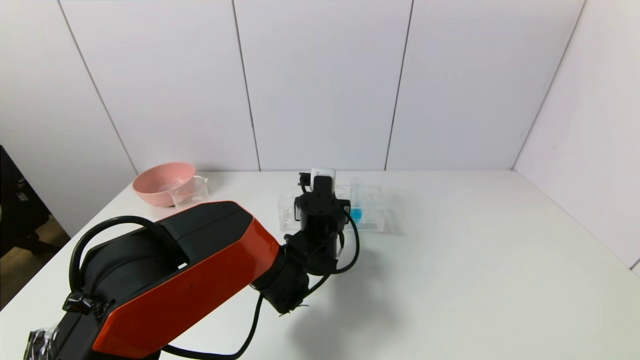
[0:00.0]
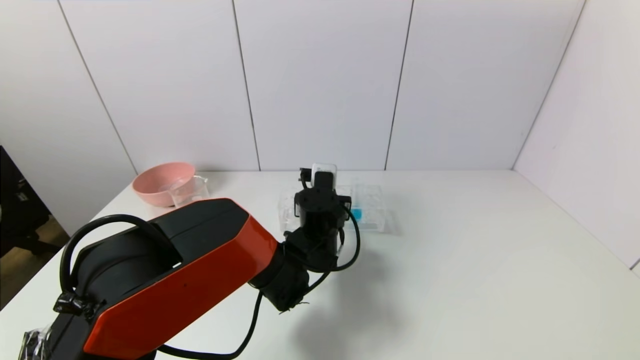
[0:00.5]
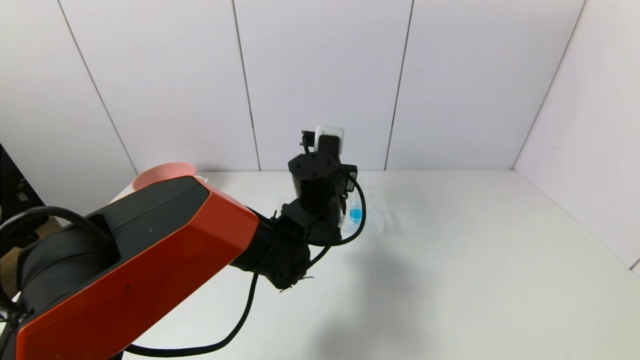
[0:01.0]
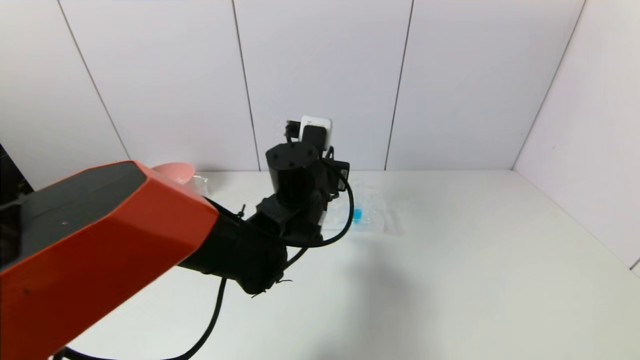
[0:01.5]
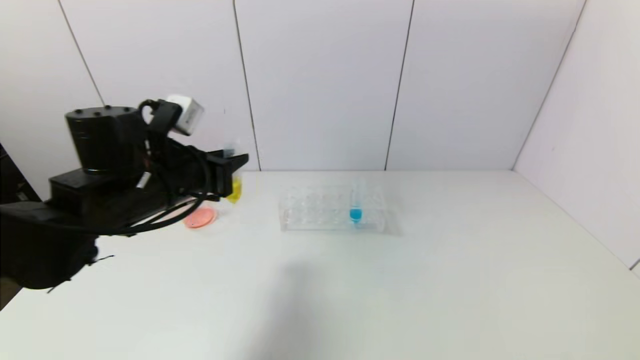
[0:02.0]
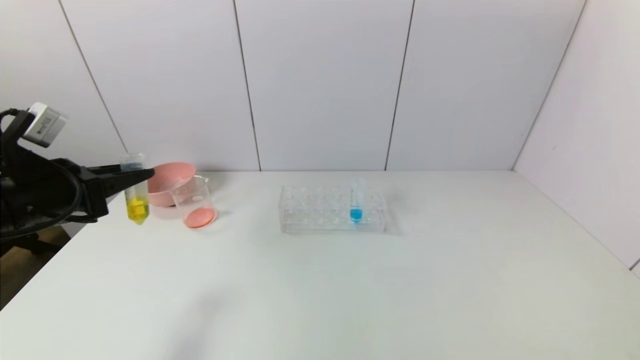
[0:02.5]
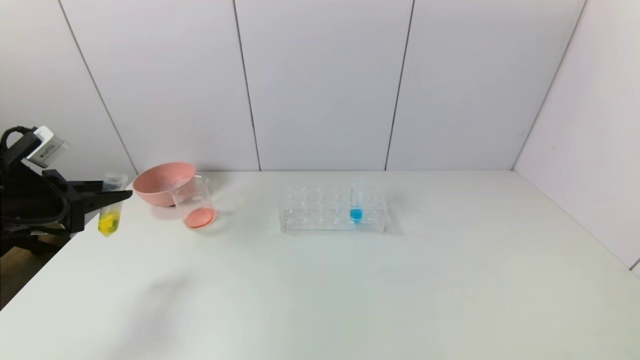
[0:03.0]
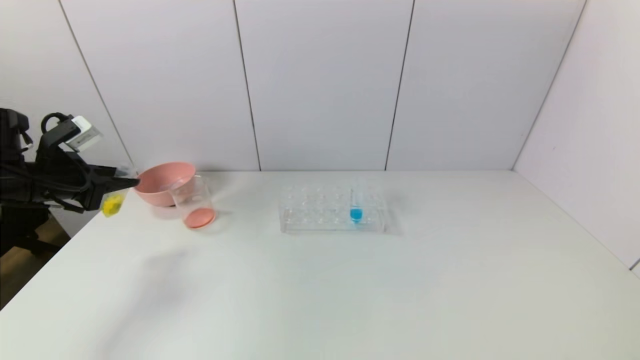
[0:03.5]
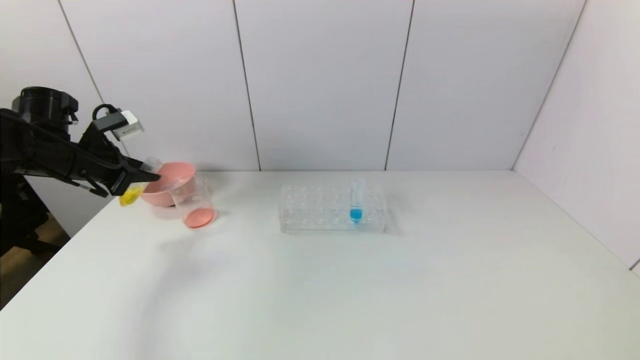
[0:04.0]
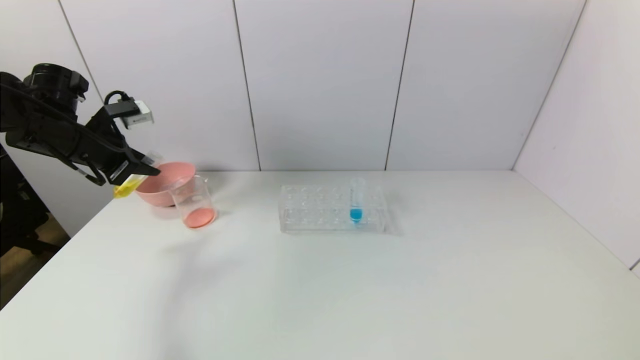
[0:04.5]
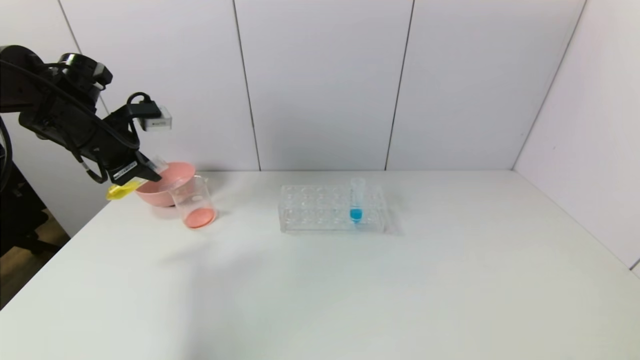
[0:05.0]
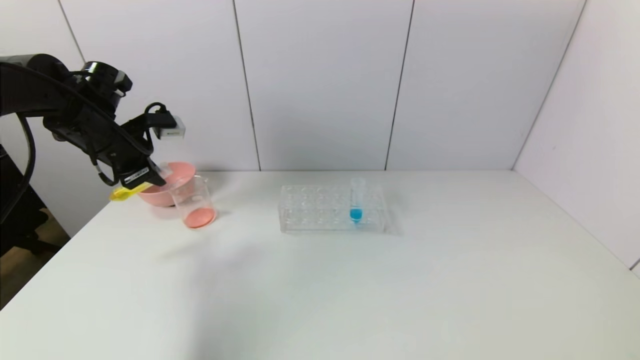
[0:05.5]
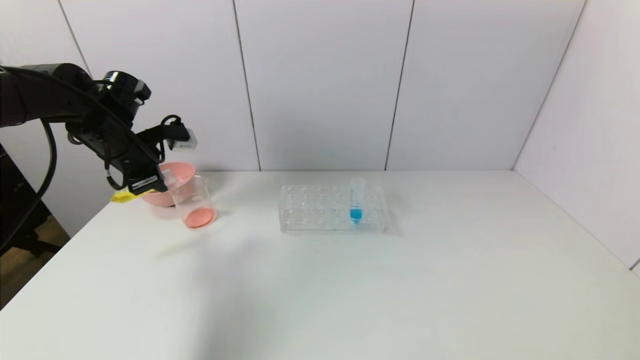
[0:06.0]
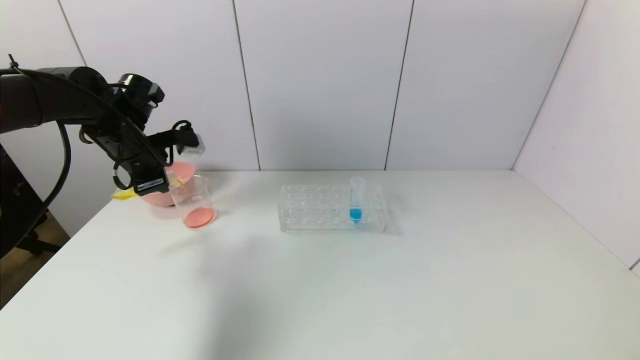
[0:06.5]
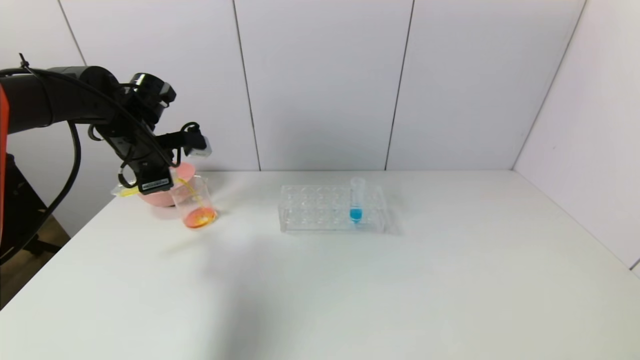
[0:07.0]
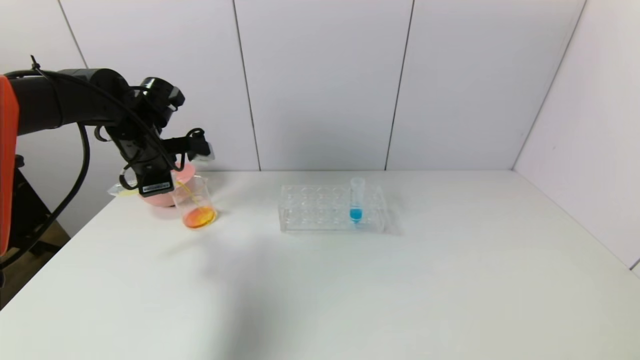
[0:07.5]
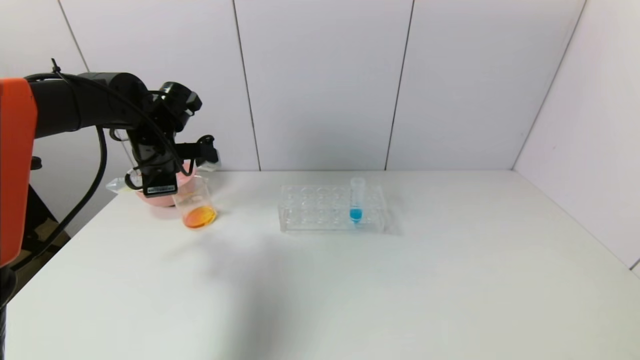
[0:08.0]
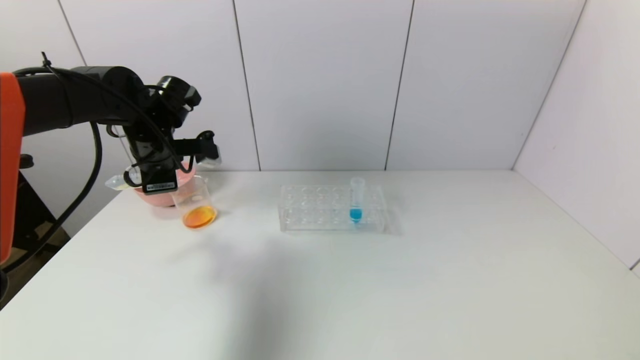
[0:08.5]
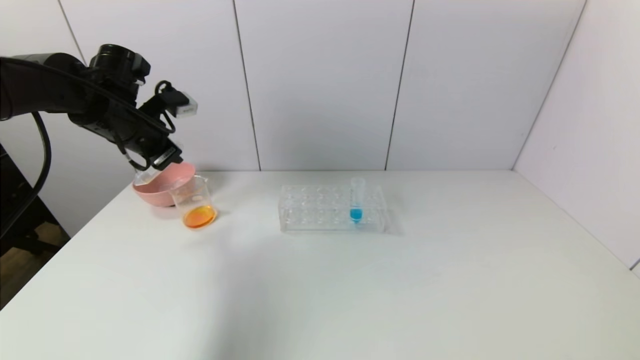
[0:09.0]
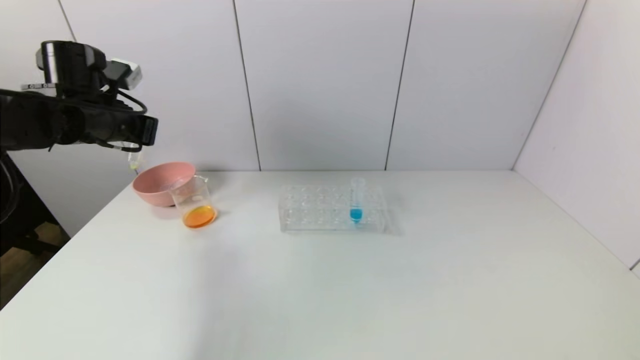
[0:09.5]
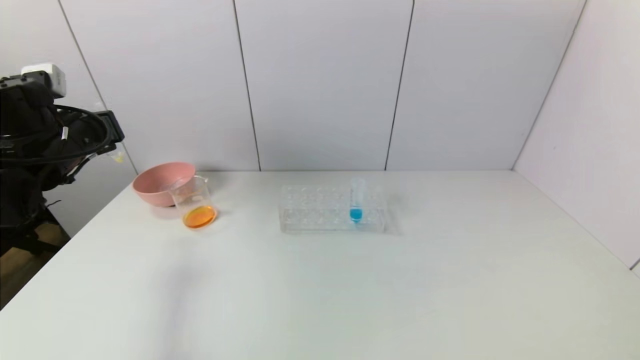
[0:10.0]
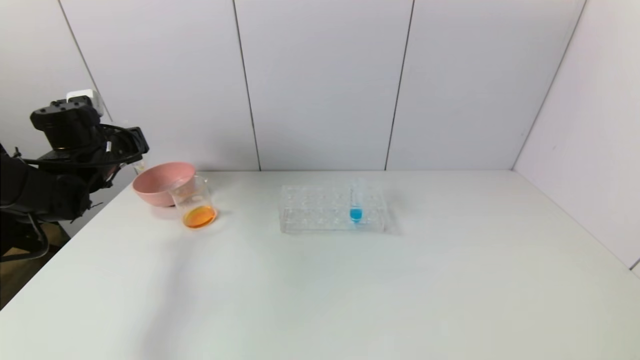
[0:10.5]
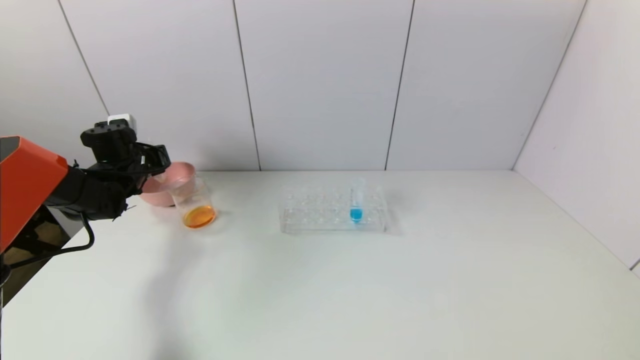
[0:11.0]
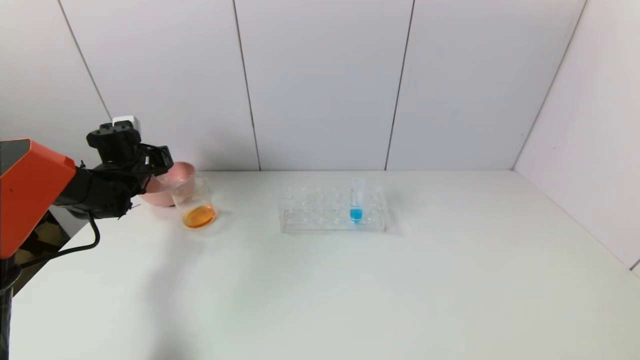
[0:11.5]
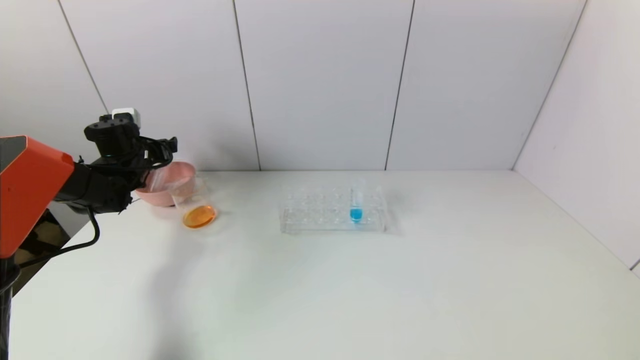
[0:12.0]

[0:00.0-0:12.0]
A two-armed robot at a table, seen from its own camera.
Task of the whole recording: pick up the test tube with yellow pigment and the test tube with red pigment by grippers and pour them into the beaker.
Step, 0:00.5 to 0:08.0: Pour the yellow reagent into the graduated cylinder with the left gripper.
Step, 0:08.5 to 0:11.5: Place the test tube into the pink bowl with the left gripper.
0:00.0 to 0:02.0: The left gripper travels to the left and upward by about 25 cm.
0:02.0 to 0:04.0: The left gripper moves to the left and forward, some 20 cm.
0:04.0 to 0:06.0: The left gripper moves to the right, approximately 5 cm.
0:06.0 to 0:08.0: The left gripper moves to the right, about 5 cm.
0:08.0 to 0:10.0: The left gripper goes roughly 10 cm to the left and backward.
0:10.0 to 0:12.0: The left gripper is displaced forward and downward by about 15 cm, and opens up.

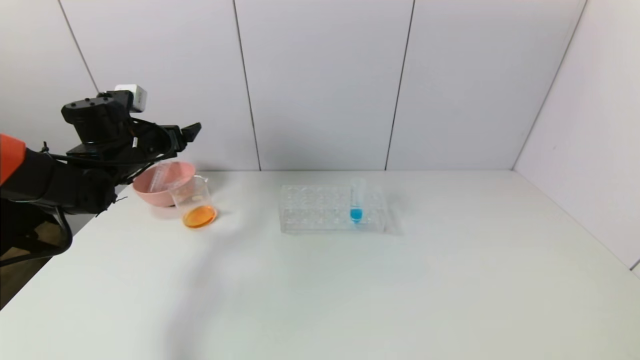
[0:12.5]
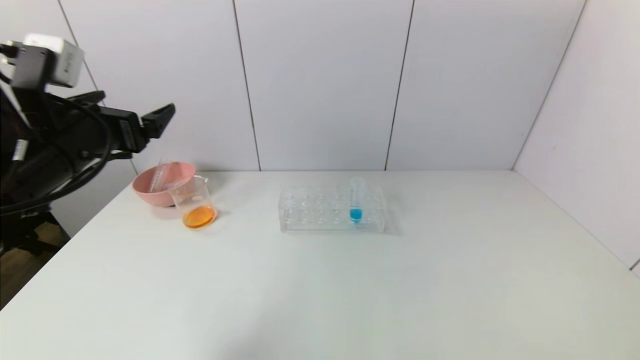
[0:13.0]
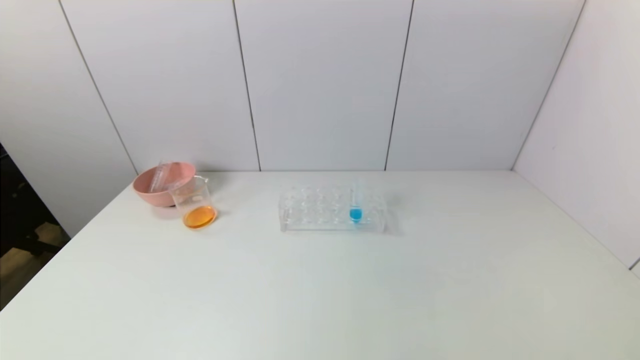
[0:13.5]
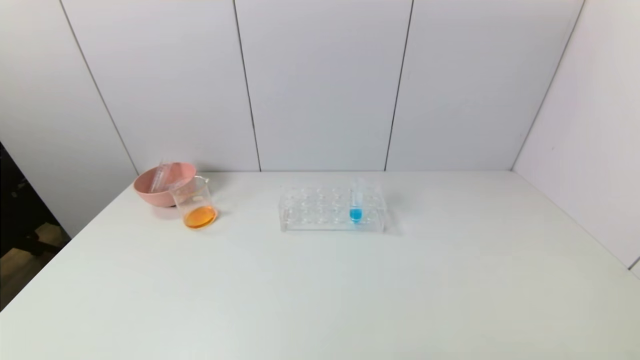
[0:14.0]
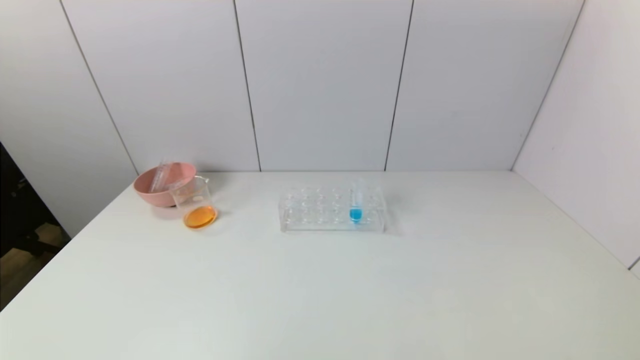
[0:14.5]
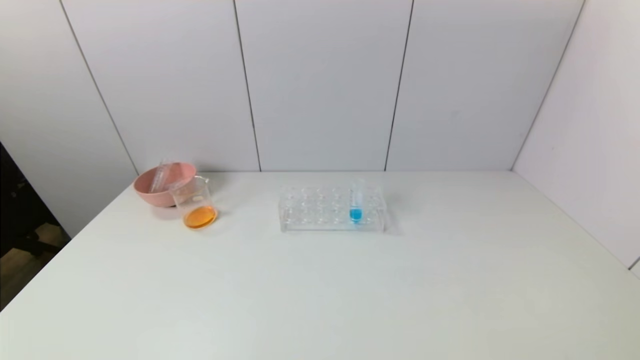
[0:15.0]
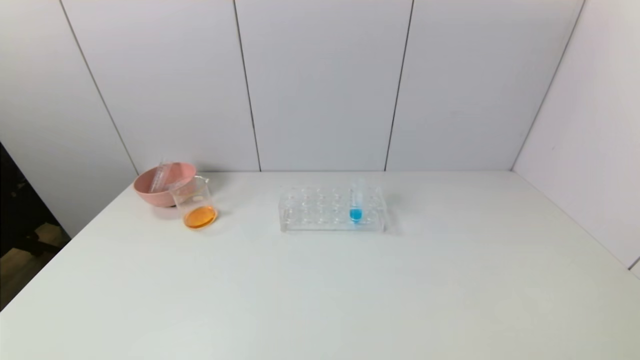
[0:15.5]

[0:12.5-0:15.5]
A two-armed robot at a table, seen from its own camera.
Task of the whole recording: pick up the test tube with yellow pigment and the test tube with red pigment by grippers and pour them into the beaker.
0:12.5 to 0:14.0: The left gripper shifts roughly 50 cm backward.
